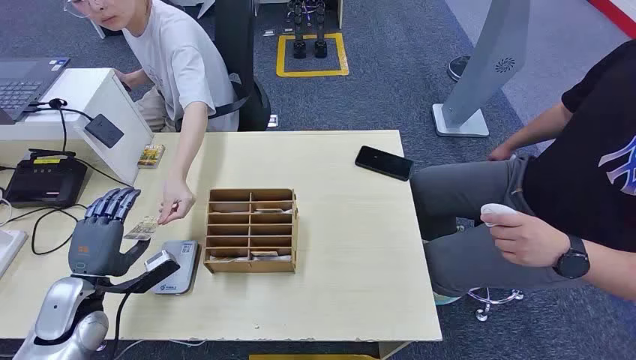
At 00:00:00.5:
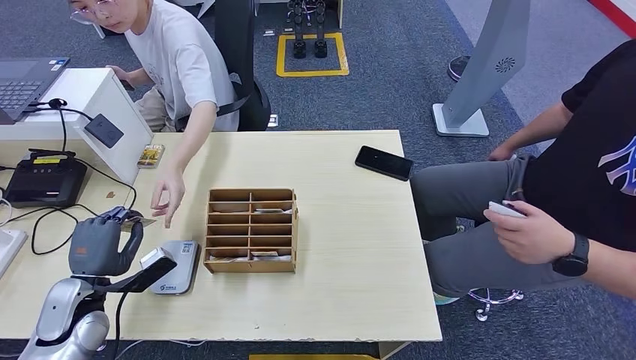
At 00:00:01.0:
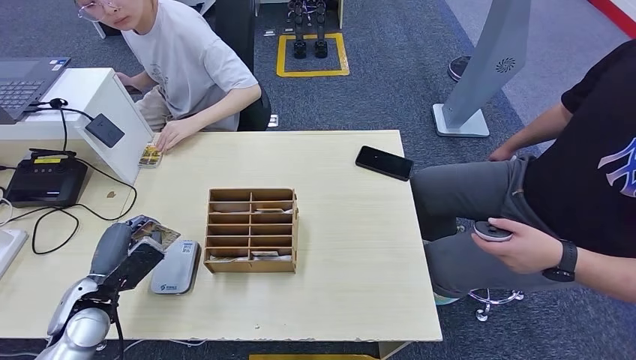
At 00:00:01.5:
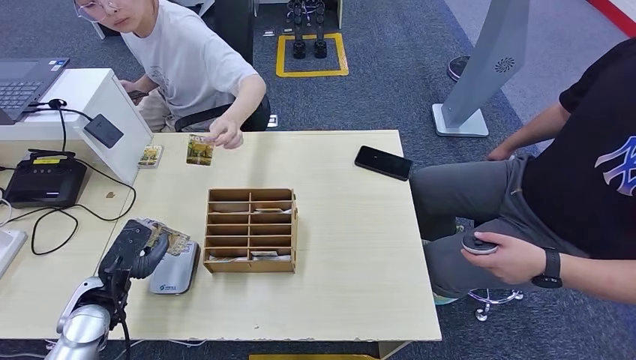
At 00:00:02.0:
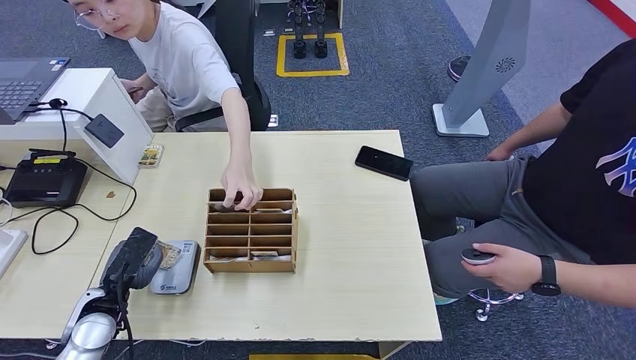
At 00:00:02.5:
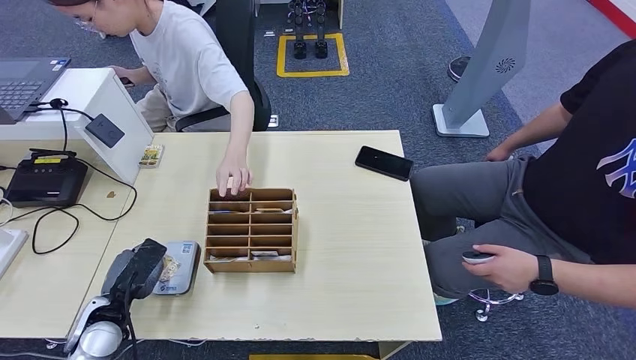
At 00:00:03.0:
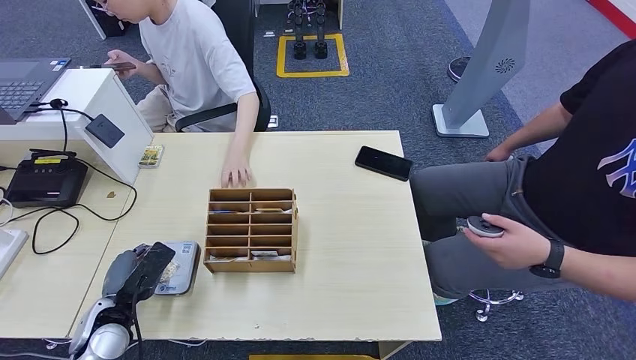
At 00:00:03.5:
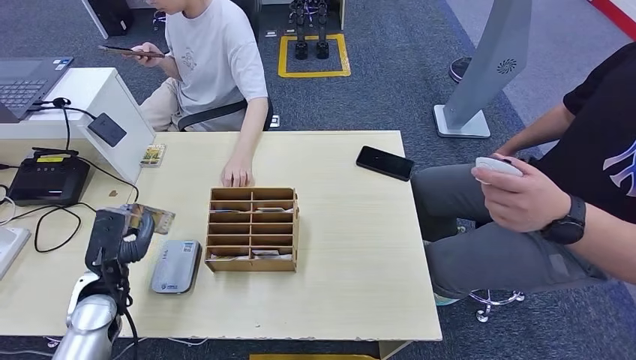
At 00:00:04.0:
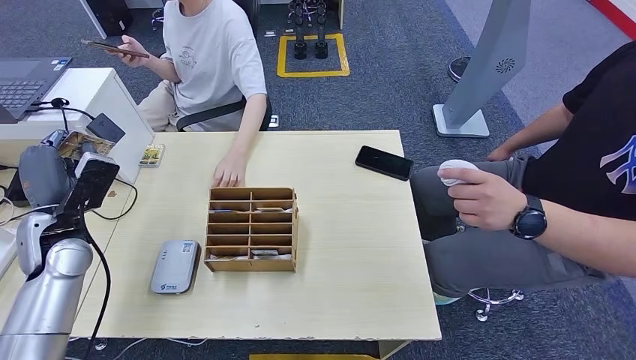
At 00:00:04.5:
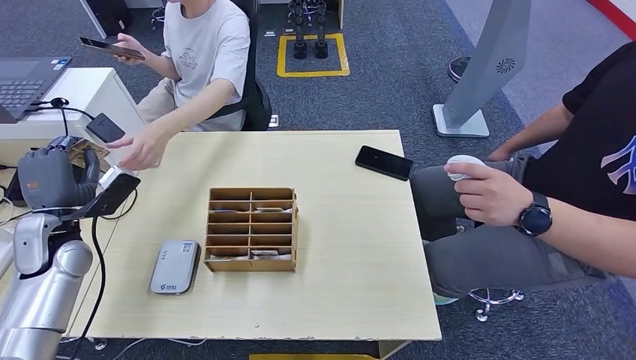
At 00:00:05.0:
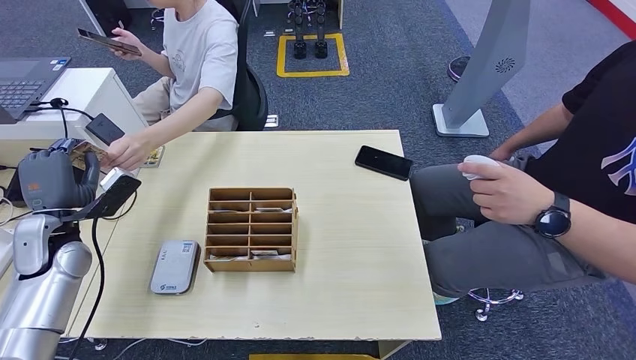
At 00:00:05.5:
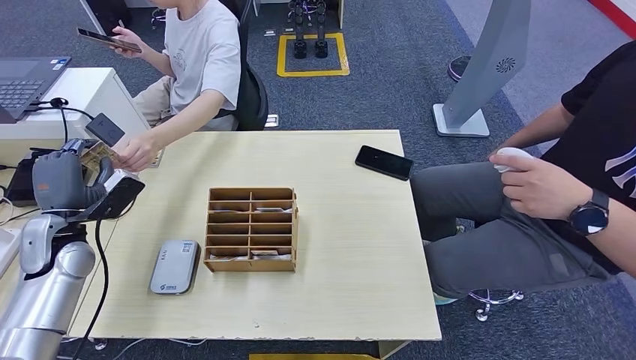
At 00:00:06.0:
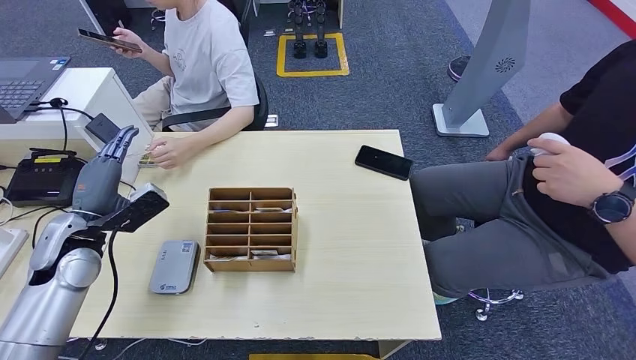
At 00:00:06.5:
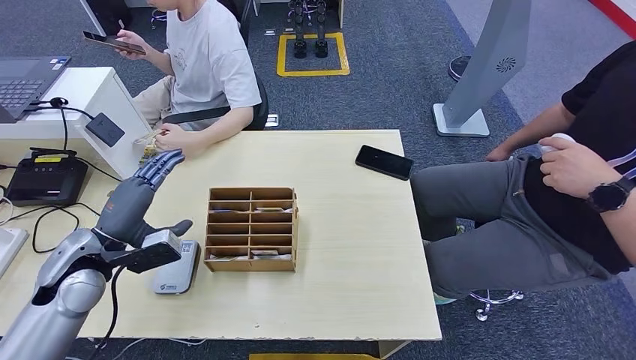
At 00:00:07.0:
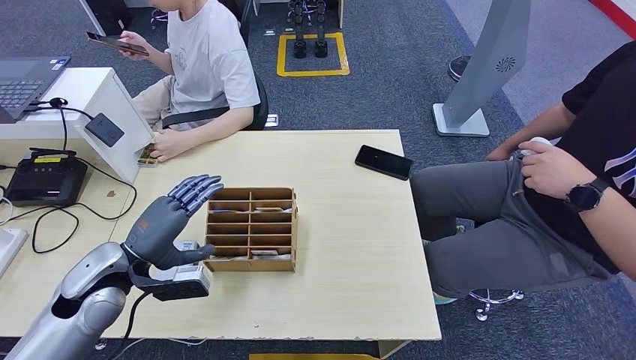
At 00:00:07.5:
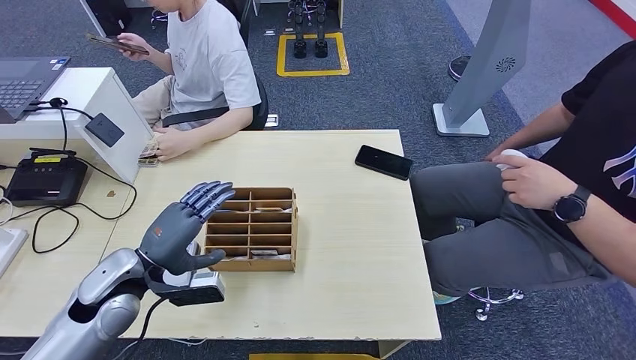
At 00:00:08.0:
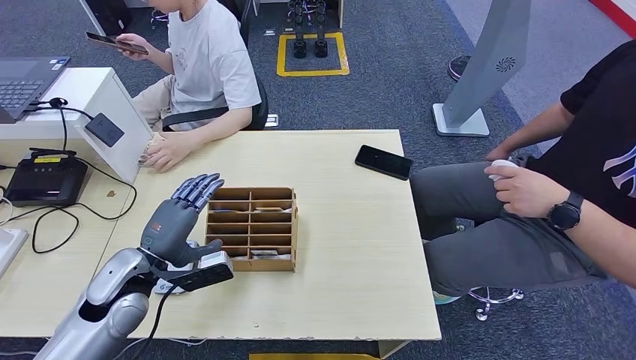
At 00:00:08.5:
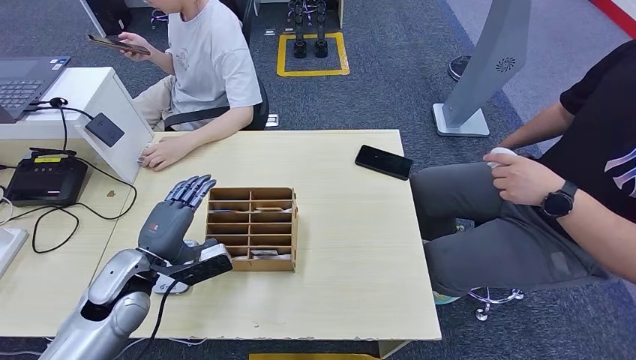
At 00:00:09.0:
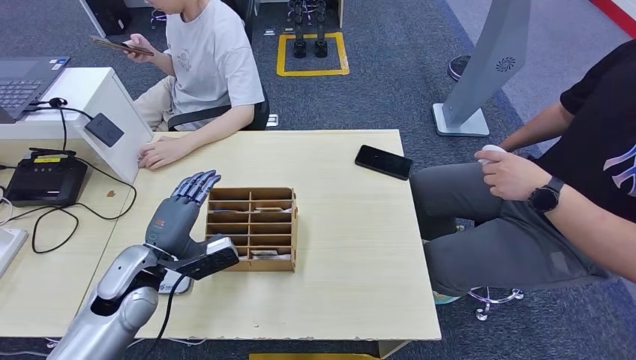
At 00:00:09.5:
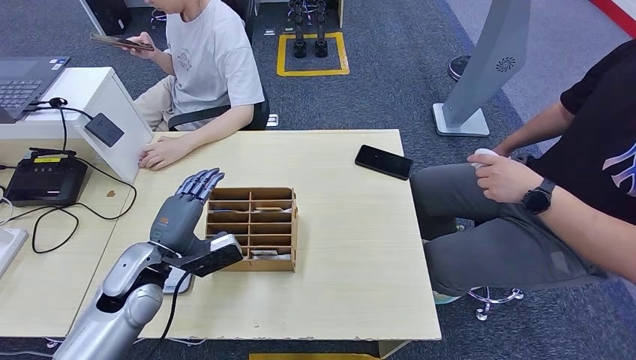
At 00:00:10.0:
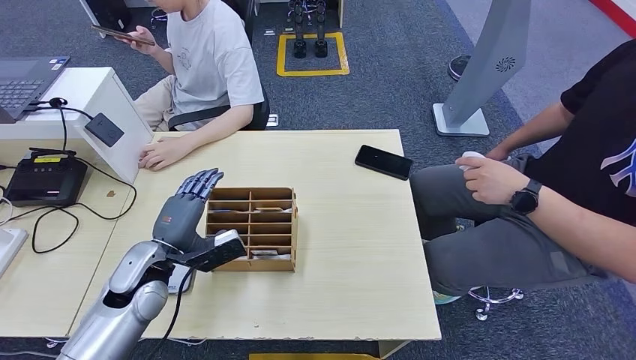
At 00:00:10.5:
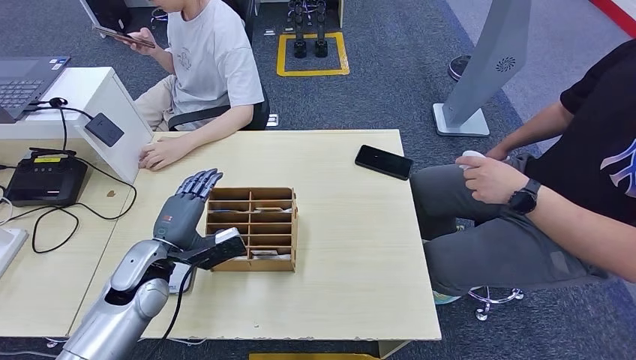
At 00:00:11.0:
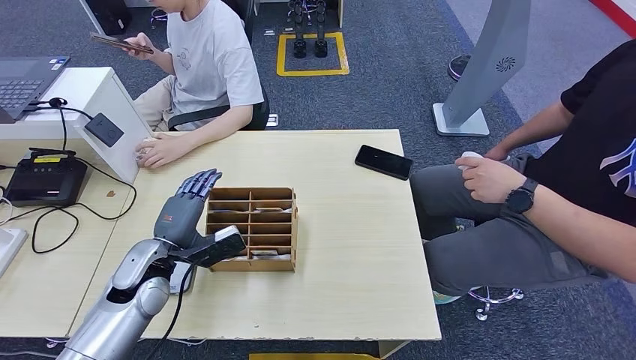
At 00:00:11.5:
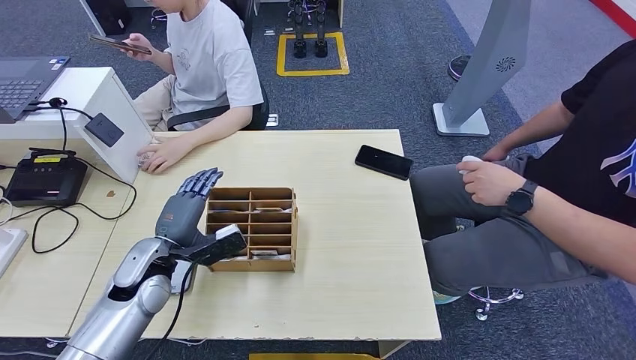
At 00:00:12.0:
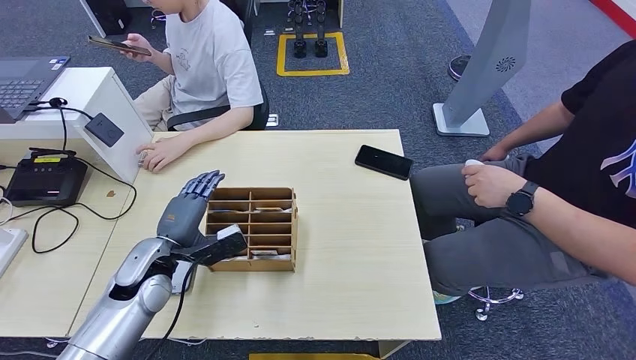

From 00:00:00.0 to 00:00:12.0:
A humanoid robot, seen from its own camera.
Step, from 00:00:00.0 to 00:00:02.0: Take the ID card from the person's hand.
Step, from 00:00:02.5 to 00:00:04.5: Place the ID card on the card reader.
Step, from 00:00:05.0 to 00:00:07.0: Hand the ID card to the person.
From 00:00:06.0 to 00:00:08.0: The left hand heads to the right and backward, covering some 10 cm.
From 00:00:08.0 to 00:00:12.0: There are only small adjustments of the hands.

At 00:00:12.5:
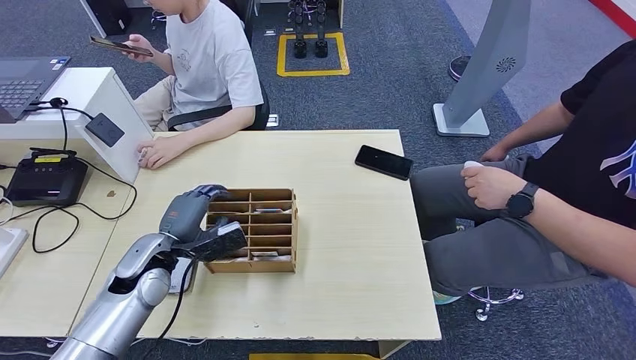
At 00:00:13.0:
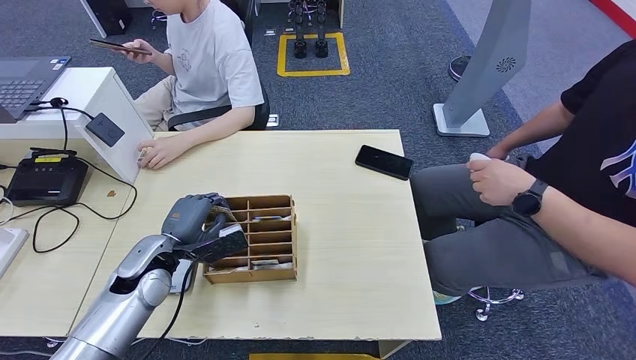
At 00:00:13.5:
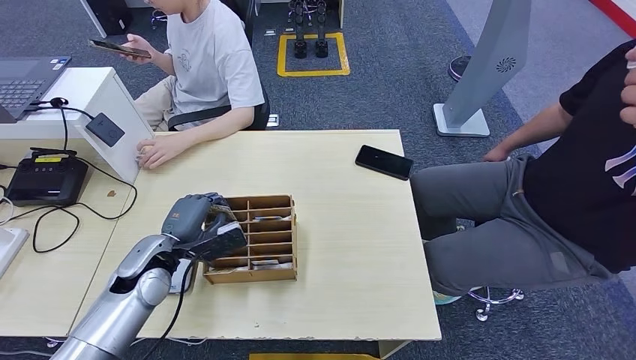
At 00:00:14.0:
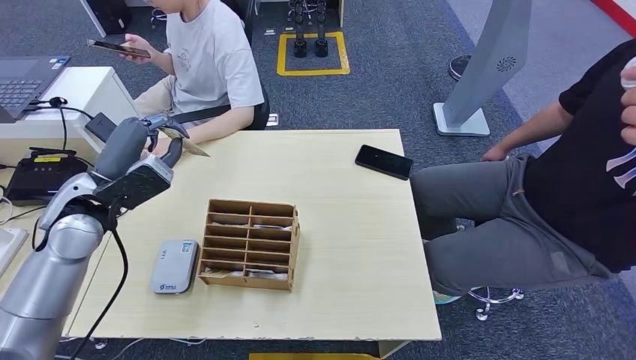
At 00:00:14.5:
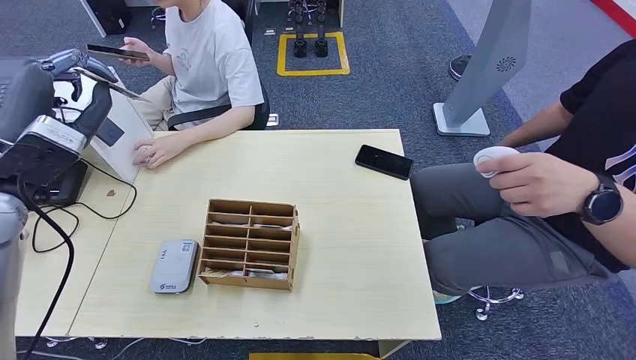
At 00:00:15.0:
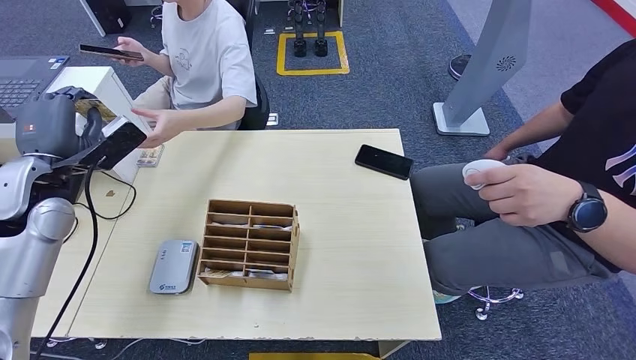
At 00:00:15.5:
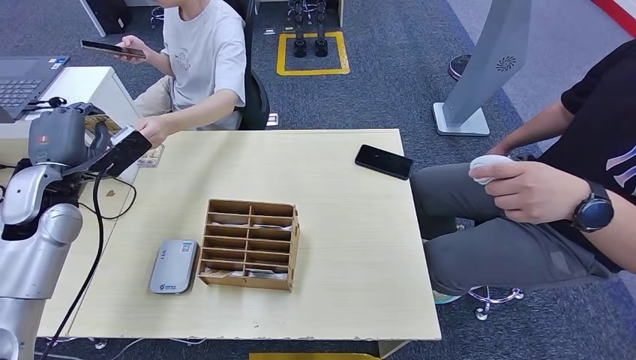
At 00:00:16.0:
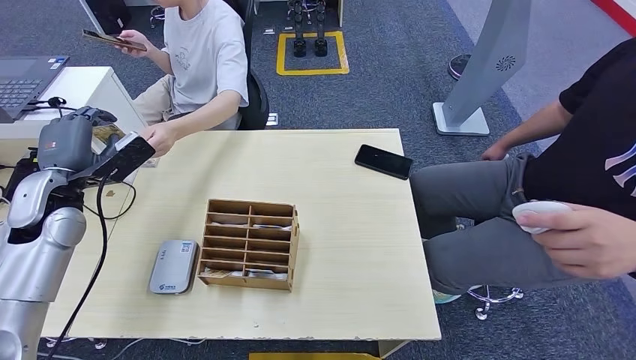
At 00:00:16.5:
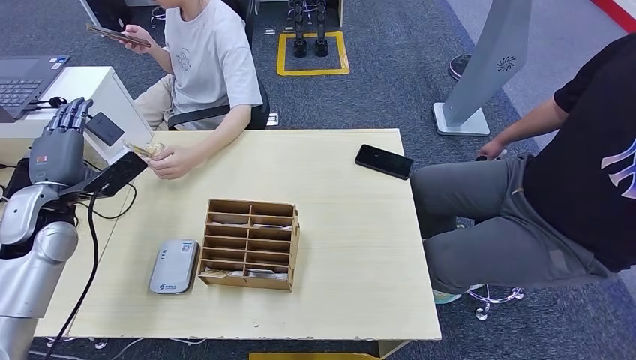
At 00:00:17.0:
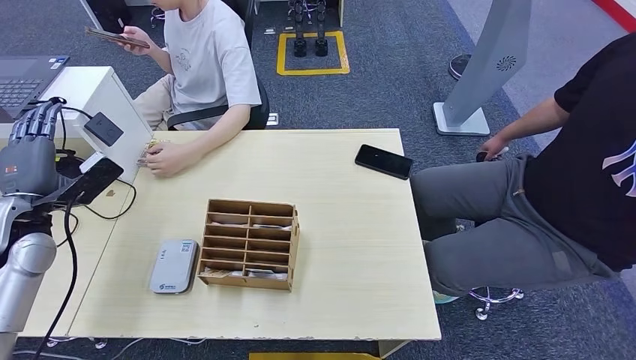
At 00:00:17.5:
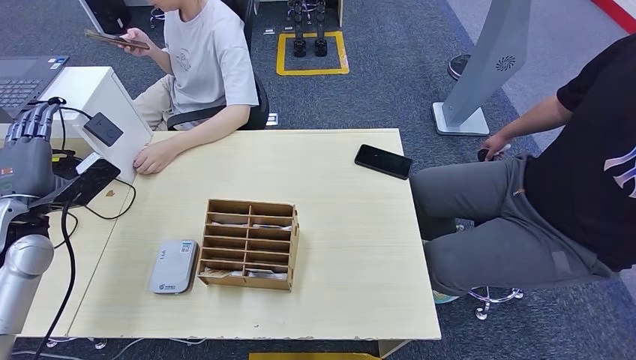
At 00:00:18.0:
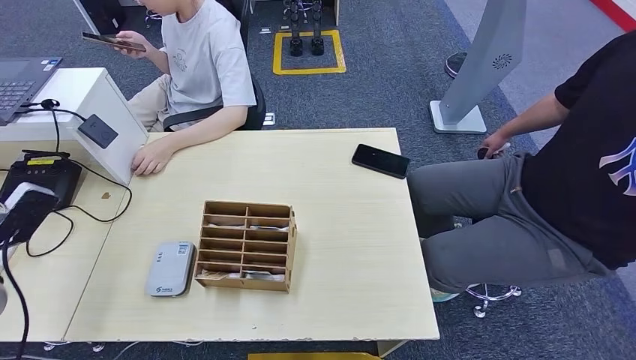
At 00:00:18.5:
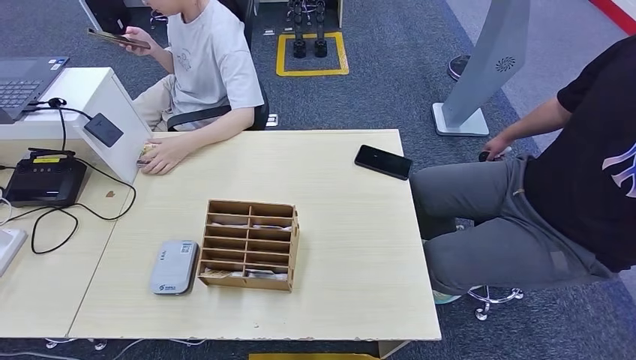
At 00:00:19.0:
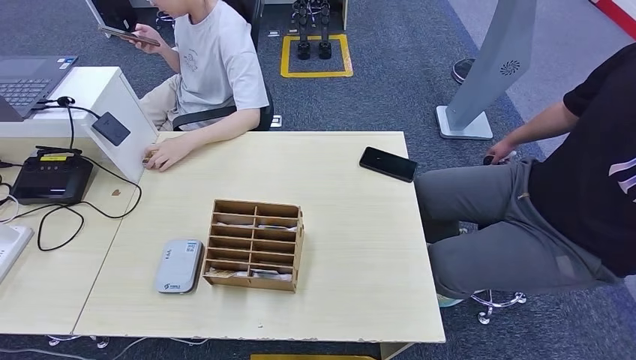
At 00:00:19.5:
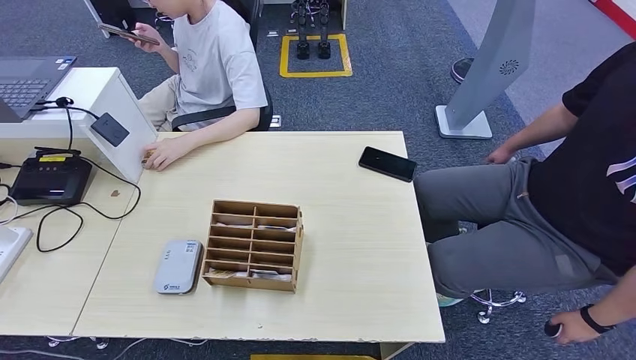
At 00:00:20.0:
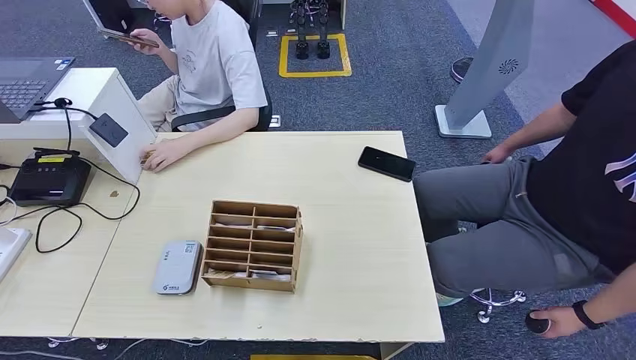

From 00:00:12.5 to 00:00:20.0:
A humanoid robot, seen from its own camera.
Step, from 00:00:14.5 to 00:00:19.5: Hand the room key to the person.
From 00:00:12.5 to 00:00:14.5: The left hand moves upward, about 20 cm.
From 00:00:14.5 to 00:00:16.5: The left hand is displaced downward by about 10 cm.
